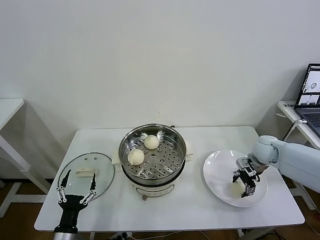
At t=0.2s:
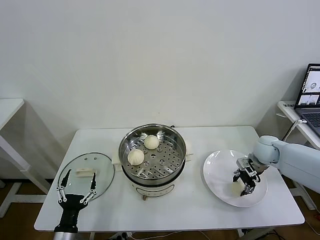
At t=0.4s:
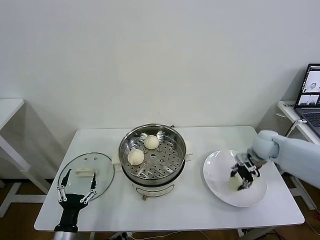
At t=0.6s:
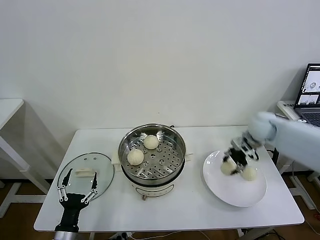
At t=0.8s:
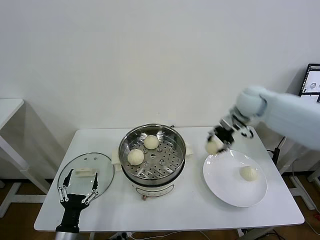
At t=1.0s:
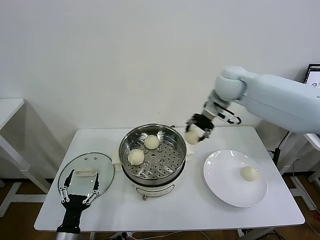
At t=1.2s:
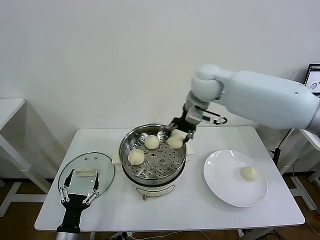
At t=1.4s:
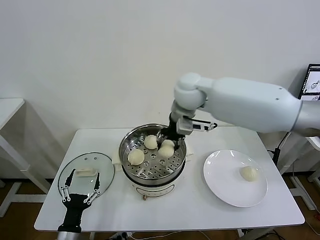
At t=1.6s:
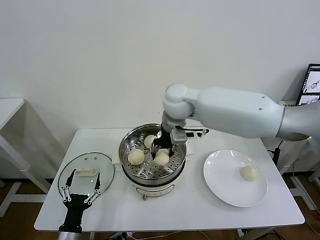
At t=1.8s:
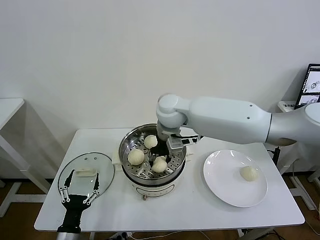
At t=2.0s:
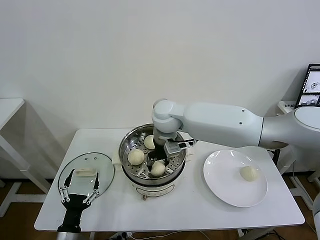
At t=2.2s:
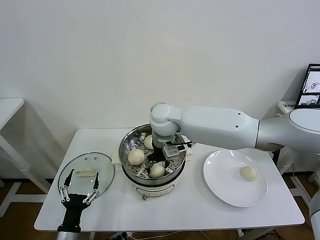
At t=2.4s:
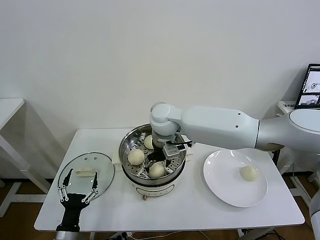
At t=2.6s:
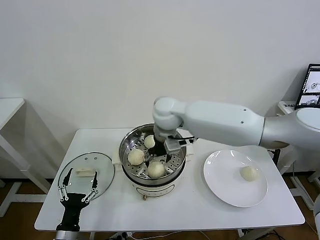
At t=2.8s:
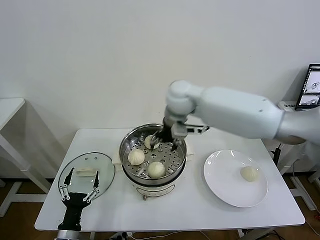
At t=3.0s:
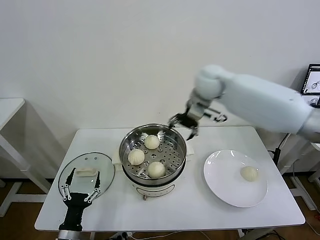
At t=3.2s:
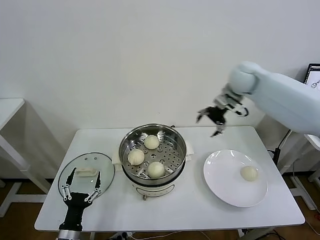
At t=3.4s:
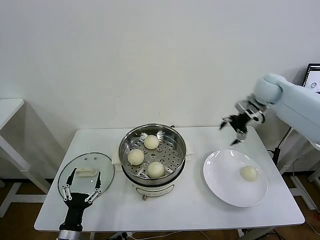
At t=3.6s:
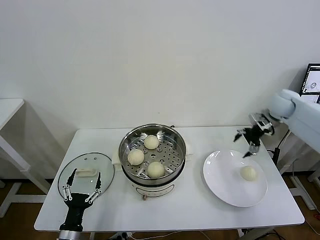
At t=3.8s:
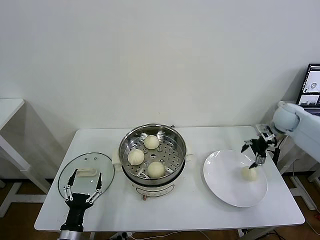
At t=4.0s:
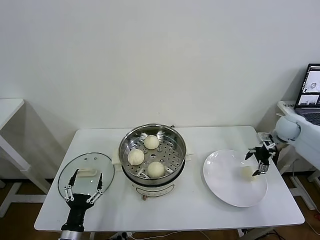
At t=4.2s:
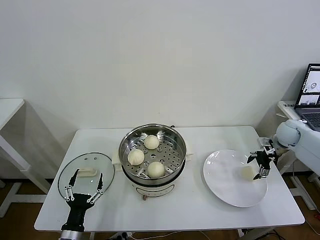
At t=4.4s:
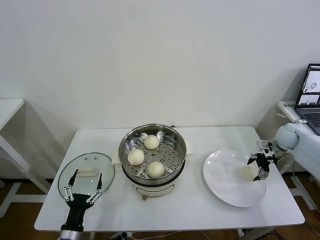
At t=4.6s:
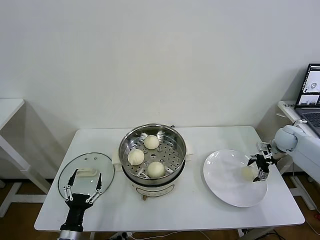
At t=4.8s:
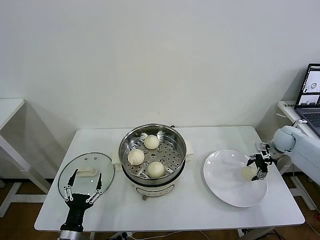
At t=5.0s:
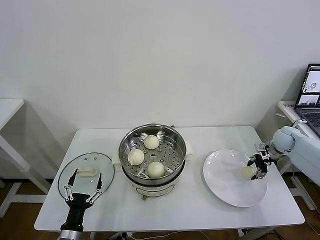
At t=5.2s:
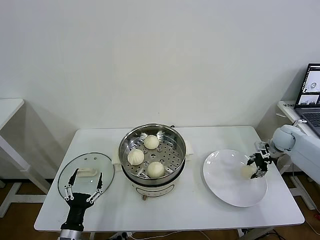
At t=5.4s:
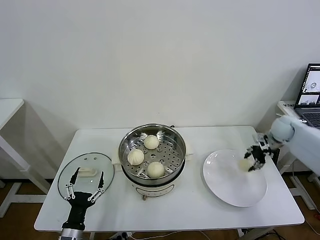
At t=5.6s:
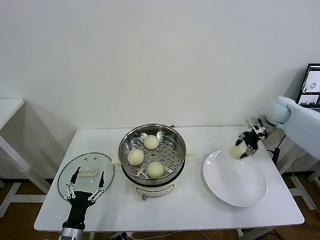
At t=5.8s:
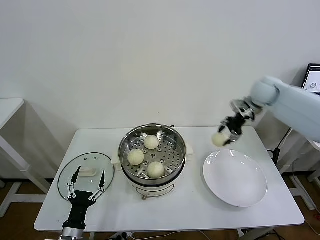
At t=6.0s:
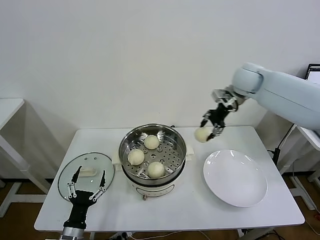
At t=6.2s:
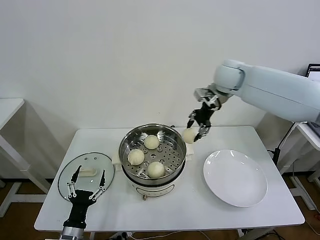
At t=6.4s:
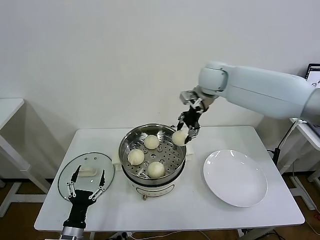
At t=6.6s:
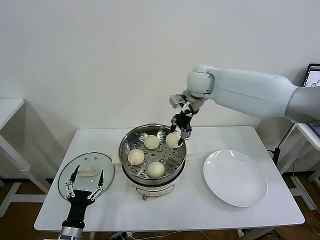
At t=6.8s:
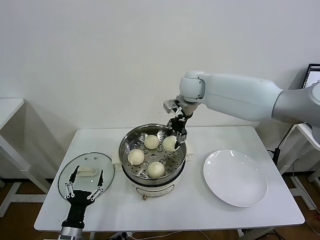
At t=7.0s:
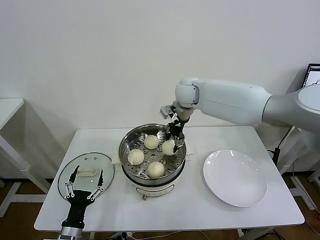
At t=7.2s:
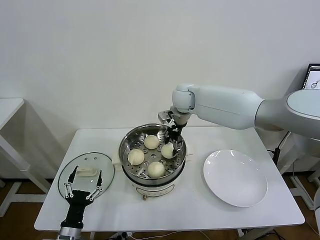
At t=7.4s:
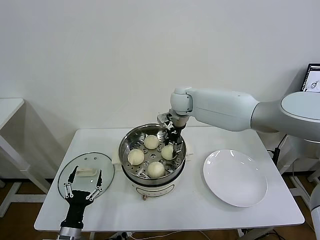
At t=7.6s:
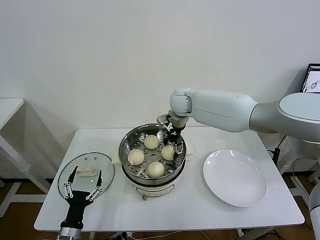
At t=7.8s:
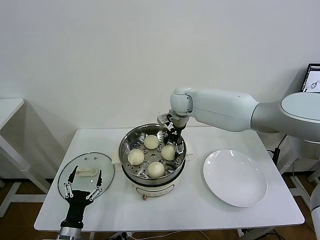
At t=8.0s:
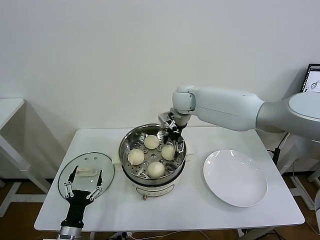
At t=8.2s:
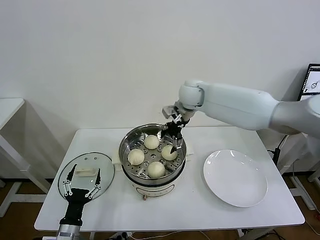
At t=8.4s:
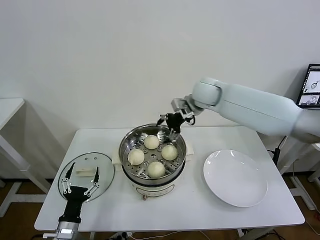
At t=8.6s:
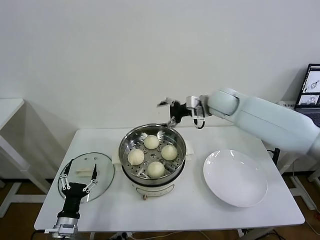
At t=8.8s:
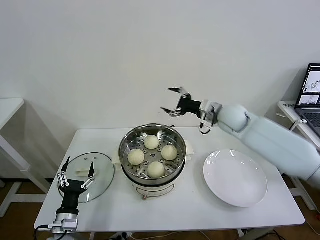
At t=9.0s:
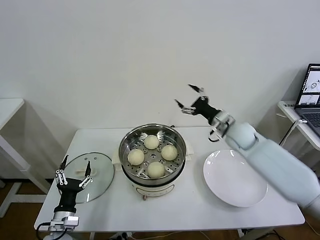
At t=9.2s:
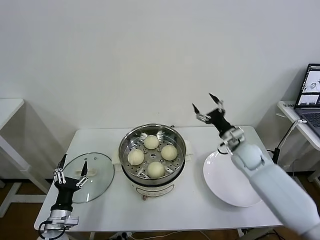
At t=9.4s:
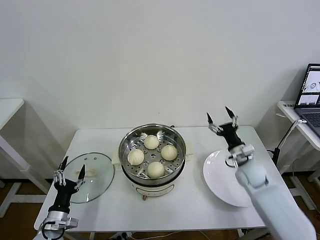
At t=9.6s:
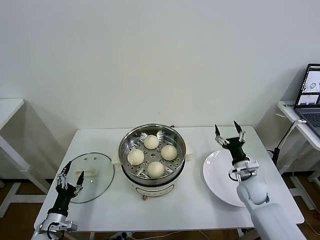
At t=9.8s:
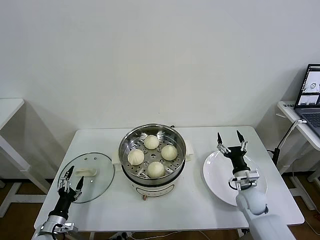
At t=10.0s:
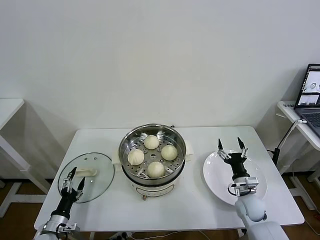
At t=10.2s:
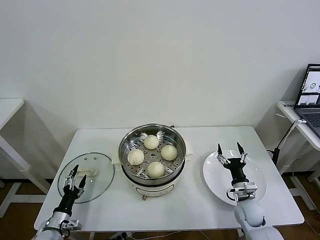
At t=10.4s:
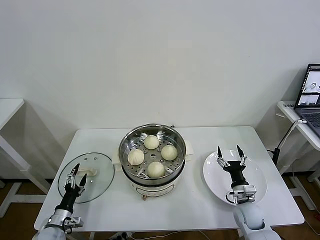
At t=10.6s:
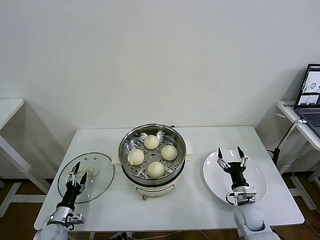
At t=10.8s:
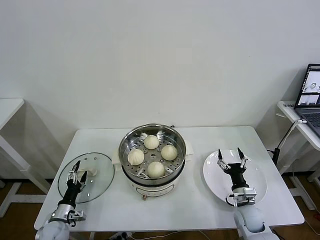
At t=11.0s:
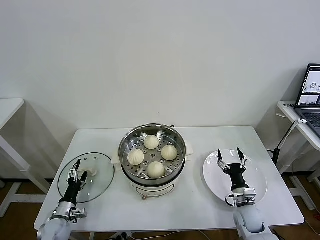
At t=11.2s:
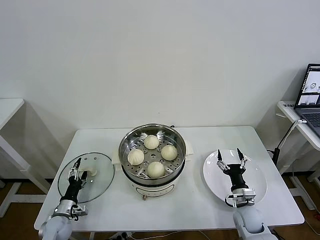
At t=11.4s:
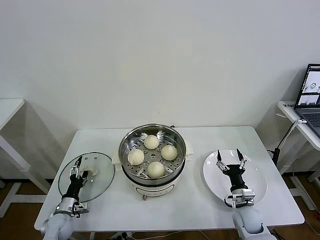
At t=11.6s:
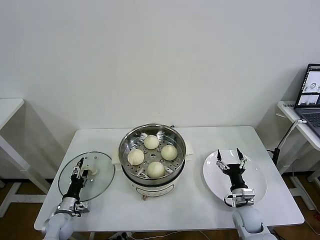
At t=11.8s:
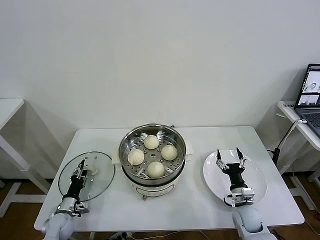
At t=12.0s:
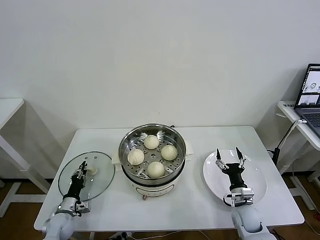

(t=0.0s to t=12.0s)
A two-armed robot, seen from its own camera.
Task of the whole recording: take steamed baozi put them in steamer then cover it.
Step, t=0.2s - t=2.4s: Place the baozi on the steamer with right gripper.
Step, t=2.6s - t=5.0s: Grasp the baozi in the plate with right gripper.
Step, t=5.2s - t=7.8s: Place the baozi on the steamer with right gripper.
t=0.0s - t=1.6s: The right gripper heads to the left and upward, covering some 40 cm.
t=1.6s - t=3.0s: The right gripper goes some 15 cm to the right and forward, and opens up.
t=3.0s - t=4.4s: The right gripper shifts about 40 cm to the right and downward.
t=4.4s - t=6.0s: The right gripper travels to the left and upward by about 30 cm, and closes up.
t=6.0s - t=7.6s: The right gripper moves to the left and downward, approximately 20 cm, and opens.
t=7.6s - t=9.0s: The left gripper shifts by about 5 cm, while the right gripper moves to the right, backward and downward, approximately 25 cm.
t=9.0s - t=10.4s: The left gripper heads downward and to the left, covering approximately 10 cm; the right gripper travels downward and backward by some 30 cm.
t=10.4s - t=12.0s: The left gripper goes about 5 cm forward, and closes up.

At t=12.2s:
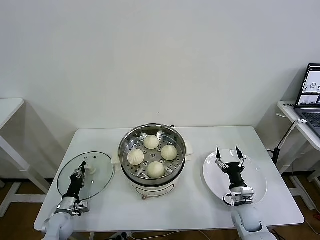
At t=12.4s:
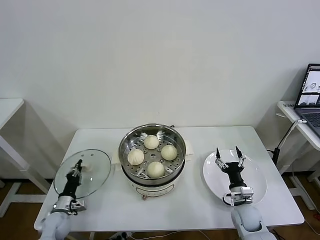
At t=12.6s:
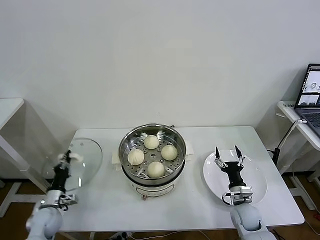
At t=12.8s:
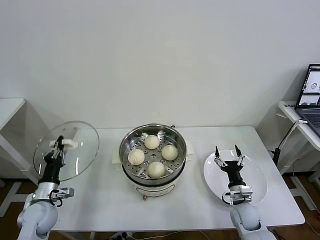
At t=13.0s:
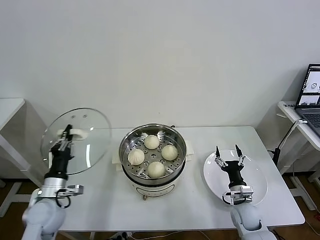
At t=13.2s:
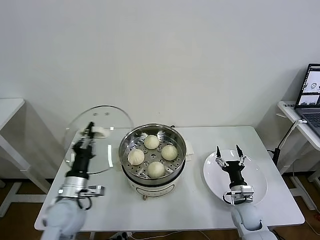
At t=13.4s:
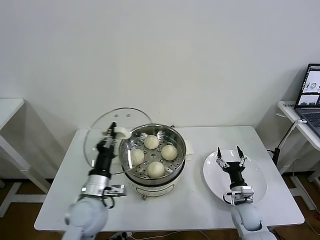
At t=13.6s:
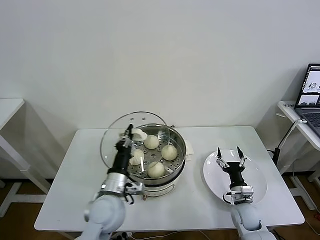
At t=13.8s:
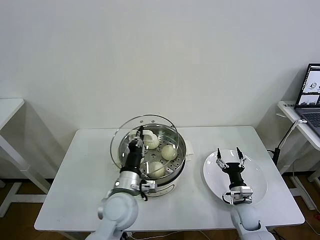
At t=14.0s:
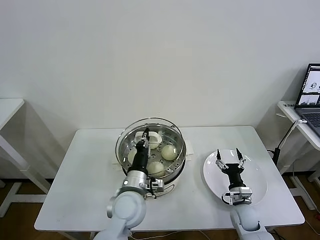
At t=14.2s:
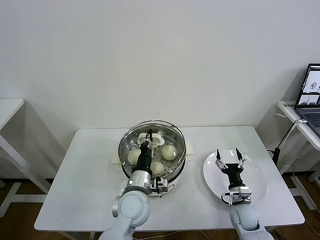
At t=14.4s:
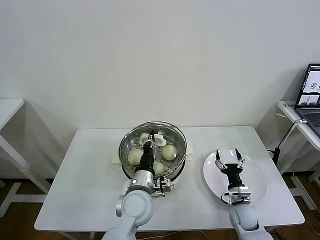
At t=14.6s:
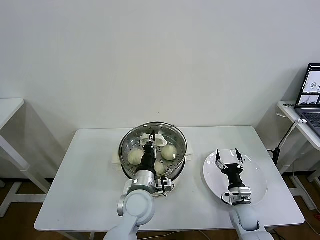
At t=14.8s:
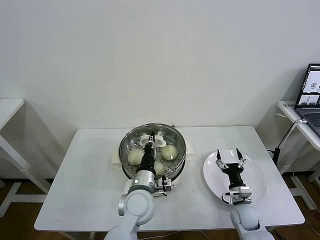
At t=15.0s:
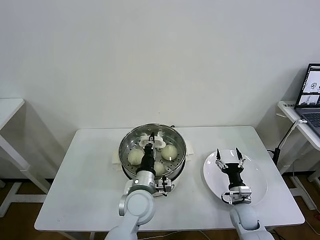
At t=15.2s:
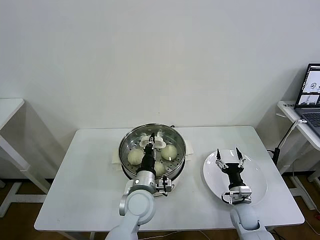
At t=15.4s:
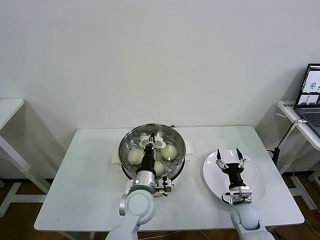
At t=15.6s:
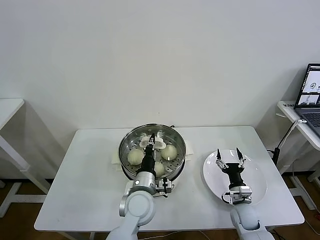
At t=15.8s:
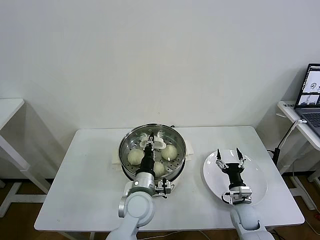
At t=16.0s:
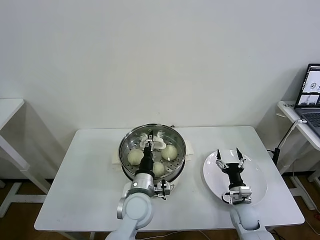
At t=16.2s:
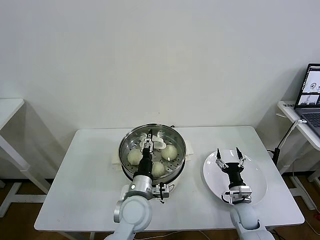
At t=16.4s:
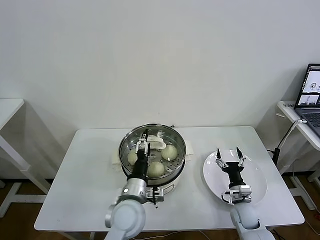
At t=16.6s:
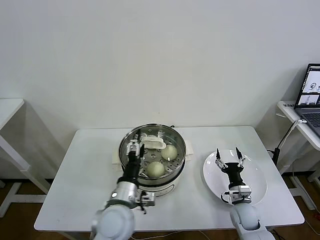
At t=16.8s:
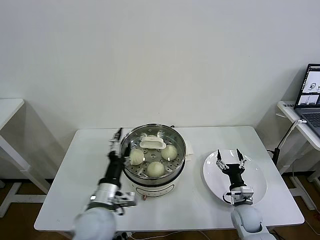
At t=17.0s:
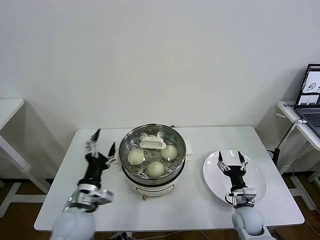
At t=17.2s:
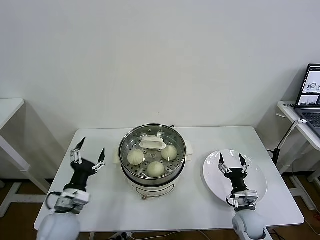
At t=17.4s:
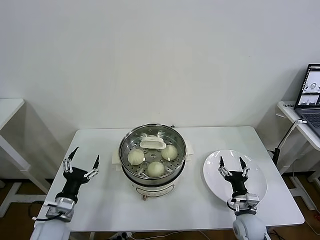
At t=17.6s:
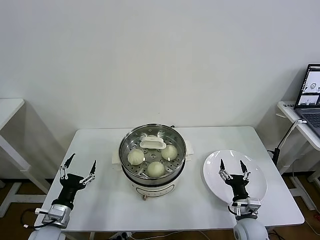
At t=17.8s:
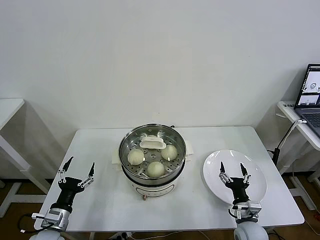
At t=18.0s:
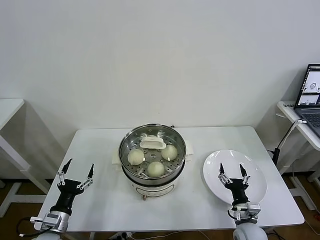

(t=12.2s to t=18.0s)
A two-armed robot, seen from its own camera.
Task of the whole recording: take steamed baozi put them in steamer then cover it.
Step, t=12.4s - t=15.8s: Place the pot lid on the steamer with left gripper.
t=12.2s - t=13.6s: The left gripper goes roughly 30 cm to the right and upward.
t=13.6s - t=15.0s: The left gripper moves to the right, approximately 10 cm.
t=15.0s - t=16.6s: The left gripper shifts by some 5 cm, and opens.
t=16.6s - t=18.0s: The left gripper is displaced to the left and downward by approximately 25 cm, while the right gripper goes some 5 cm backward.
